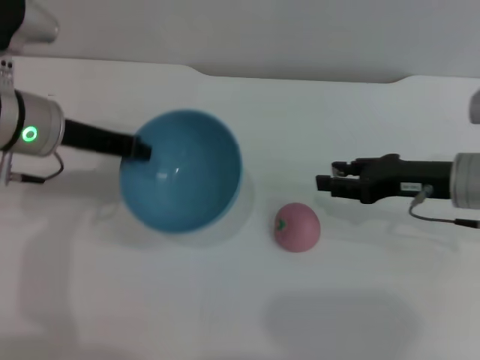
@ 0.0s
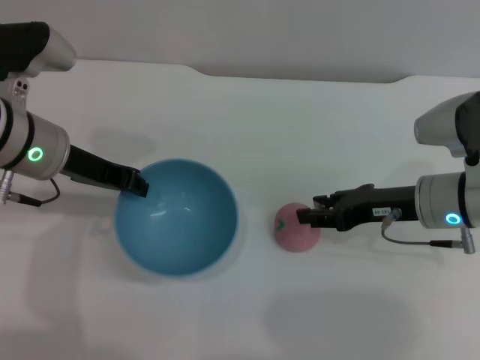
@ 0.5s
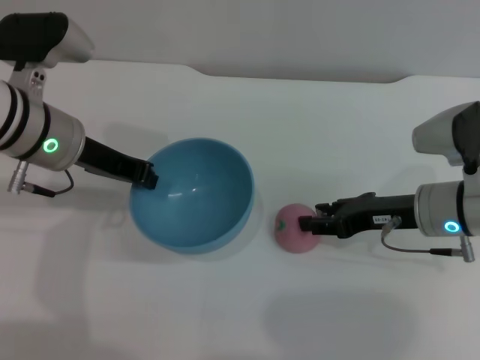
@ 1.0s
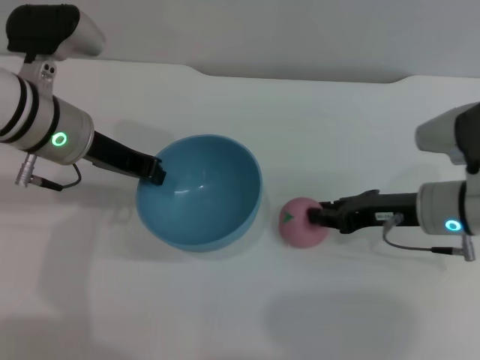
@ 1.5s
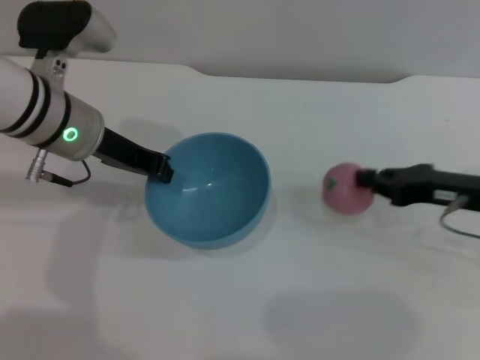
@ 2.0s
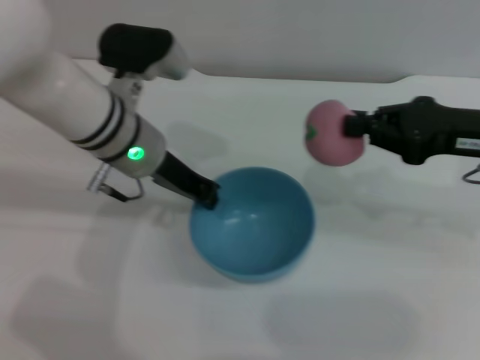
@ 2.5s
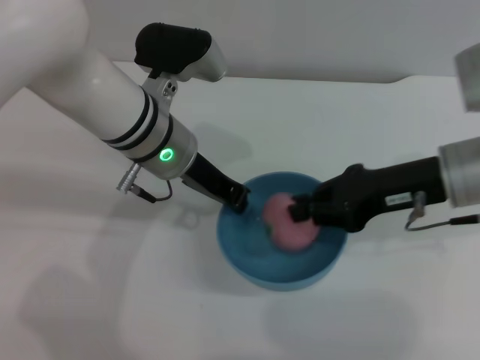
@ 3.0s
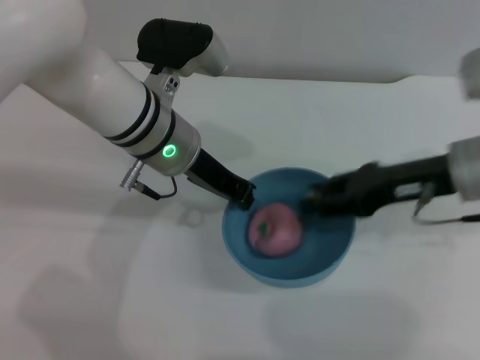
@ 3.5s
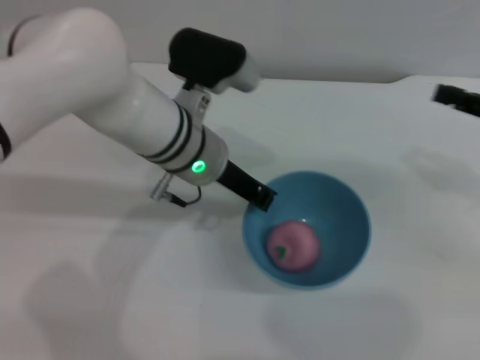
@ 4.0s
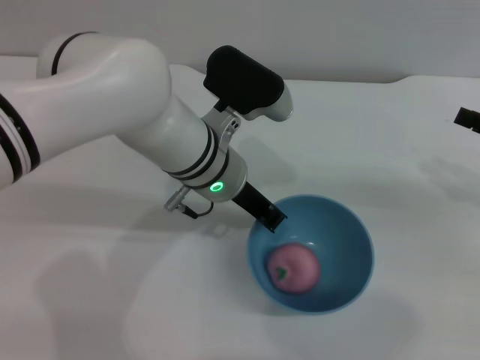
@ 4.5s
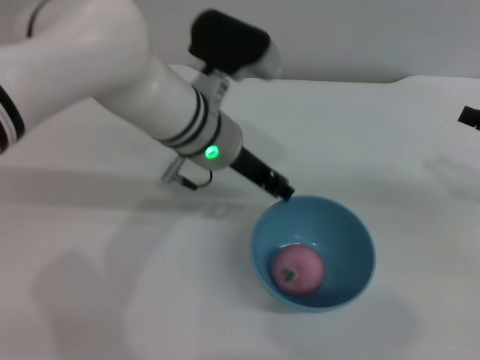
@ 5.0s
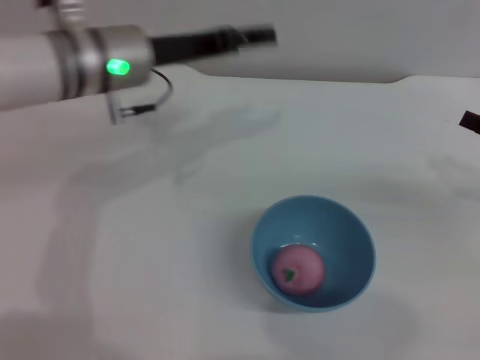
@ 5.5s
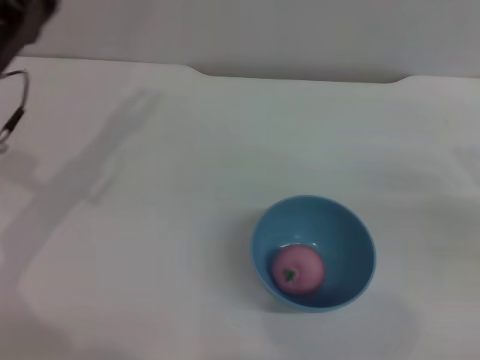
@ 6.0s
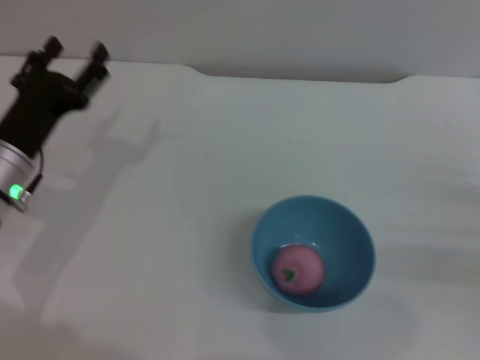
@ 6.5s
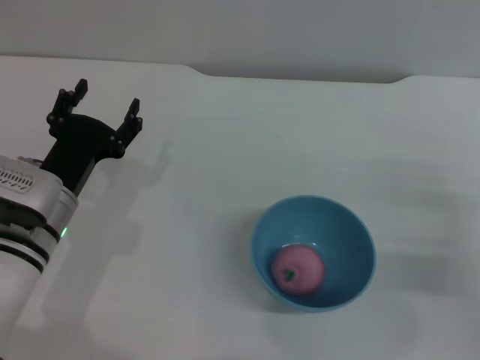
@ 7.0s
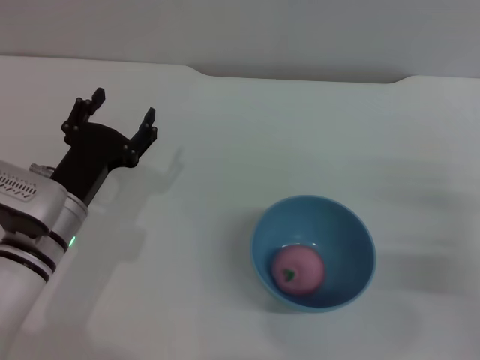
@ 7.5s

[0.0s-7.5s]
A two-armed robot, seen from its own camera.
Task of the whole recording: put the peach into the blue bowl and pour it out repeatedly.
Step, 0.0s to 2.0s: Pick up the peach with the right gripper.
Step, 2.5s to 3.5s: Place the peach into the bowl.
Step, 4.0s to 5.0s: Place the bowl on the table.
0.0s to 2.0s: The right gripper closes up.
2.0s to 4.0s: The right gripper goes some 10 cm to the right and upward, and opens its fingers, while the left gripper shifts about 10 cm to the right.
4.0s to 5.5s: The left gripper moves to the left, approximately 10 cm, and opens up. Meanwhile the right gripper moves about 5 cm.
5.5s to 7.5s: The right gripper is displaced downward by about 10 cm; the left gripper goes about 20 cm downward and backward.
